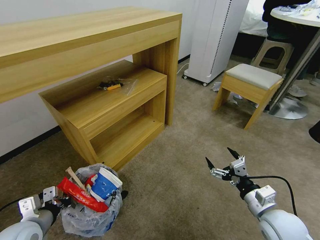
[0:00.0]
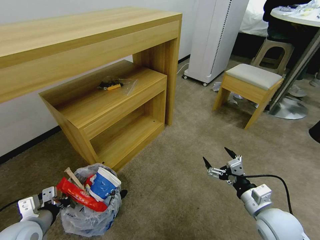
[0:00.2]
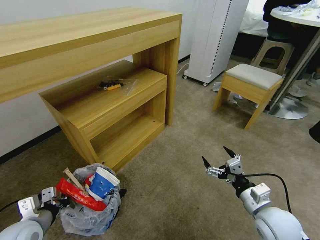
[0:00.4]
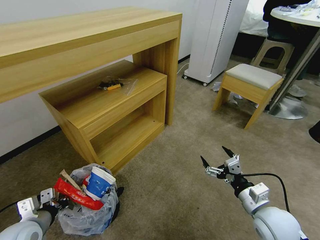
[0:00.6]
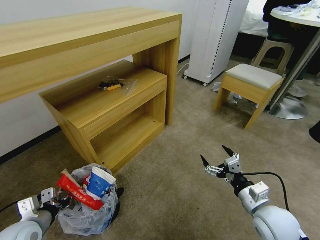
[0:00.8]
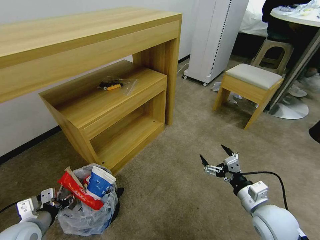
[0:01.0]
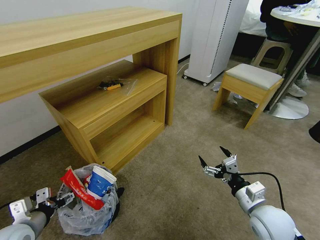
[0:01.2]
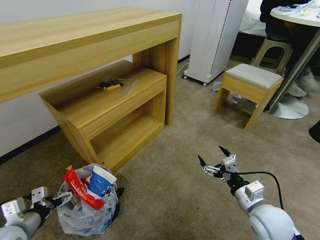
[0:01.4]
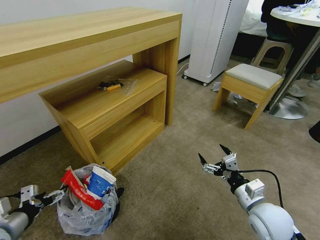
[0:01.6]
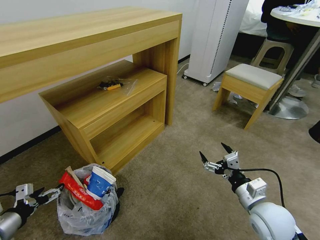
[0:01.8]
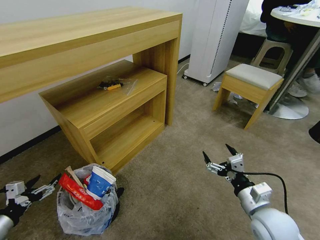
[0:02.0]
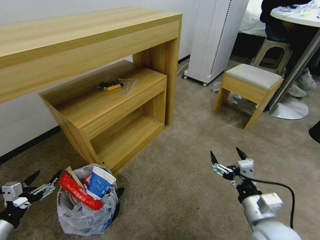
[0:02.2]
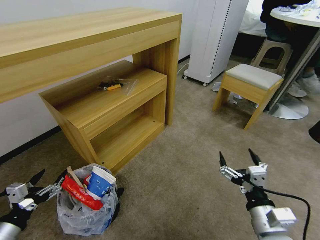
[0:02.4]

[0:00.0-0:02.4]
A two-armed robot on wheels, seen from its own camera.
Task of the whole recording: Pick up the trash bin and place the garbage on the floor into it.
0:00.0 to 0:01.2: The left gripper opens up.
0:01.2 to 0:02.4: Both grippers travel together backward, some 5 cm.
